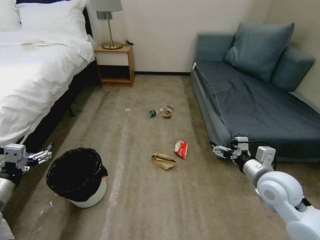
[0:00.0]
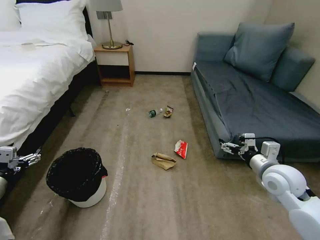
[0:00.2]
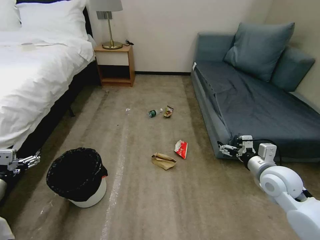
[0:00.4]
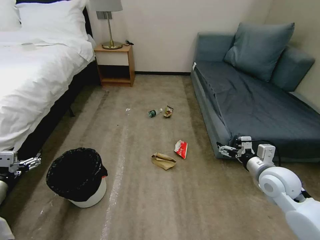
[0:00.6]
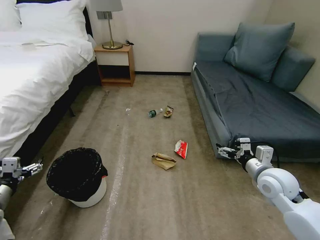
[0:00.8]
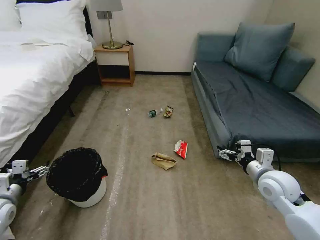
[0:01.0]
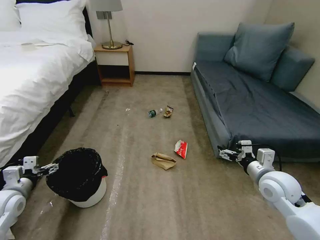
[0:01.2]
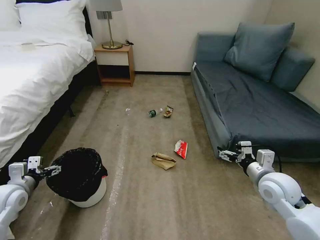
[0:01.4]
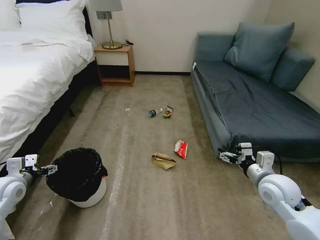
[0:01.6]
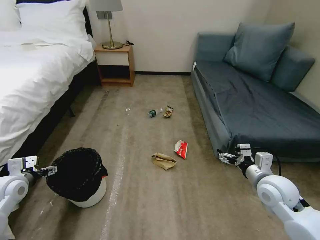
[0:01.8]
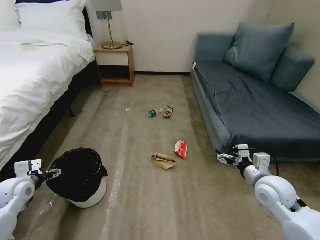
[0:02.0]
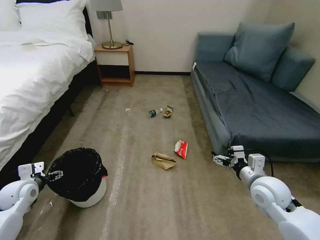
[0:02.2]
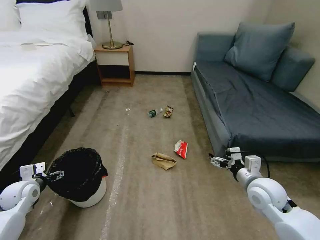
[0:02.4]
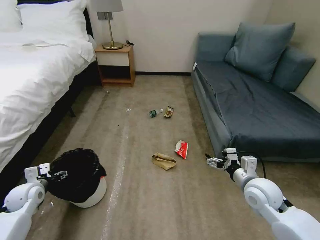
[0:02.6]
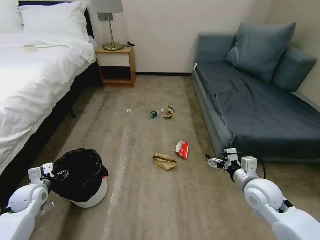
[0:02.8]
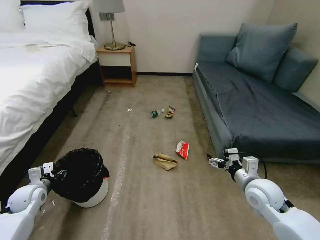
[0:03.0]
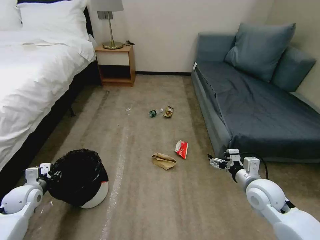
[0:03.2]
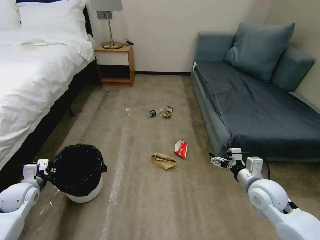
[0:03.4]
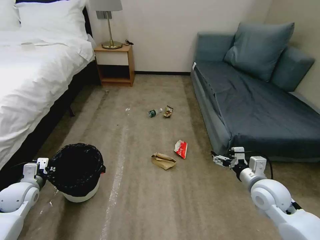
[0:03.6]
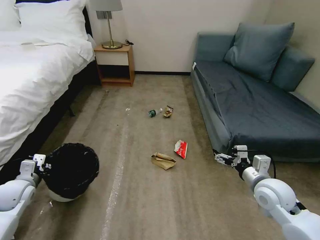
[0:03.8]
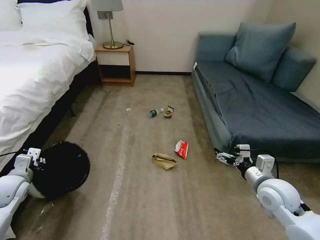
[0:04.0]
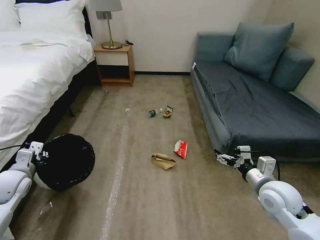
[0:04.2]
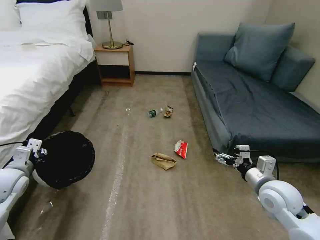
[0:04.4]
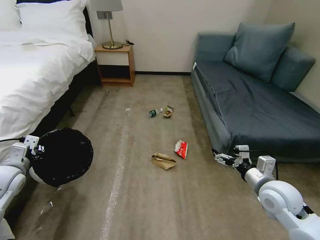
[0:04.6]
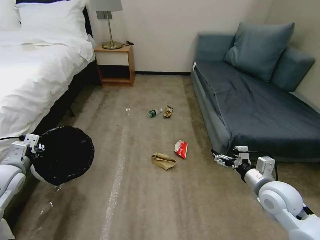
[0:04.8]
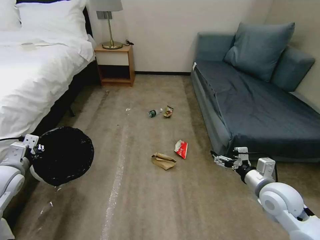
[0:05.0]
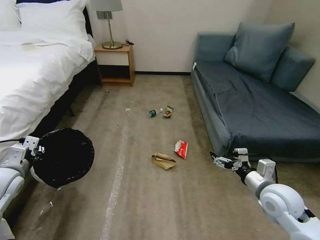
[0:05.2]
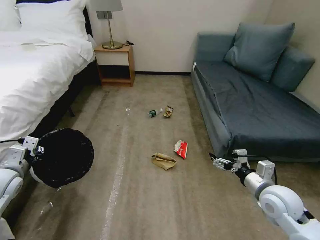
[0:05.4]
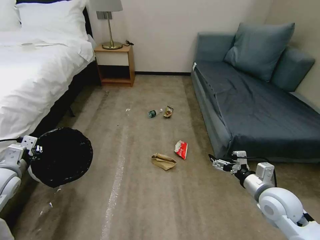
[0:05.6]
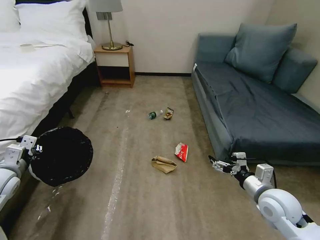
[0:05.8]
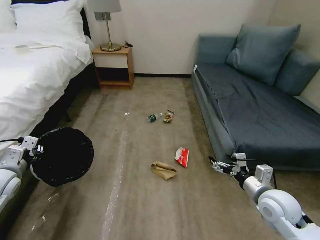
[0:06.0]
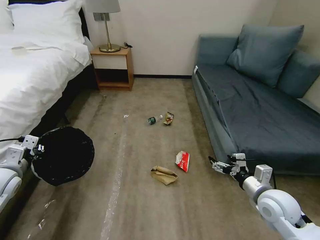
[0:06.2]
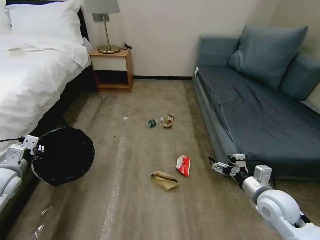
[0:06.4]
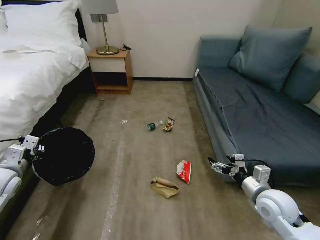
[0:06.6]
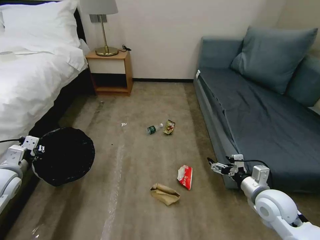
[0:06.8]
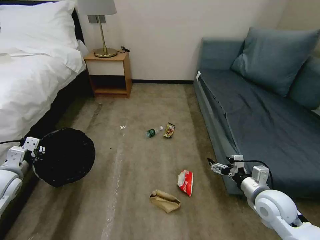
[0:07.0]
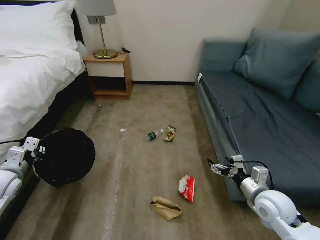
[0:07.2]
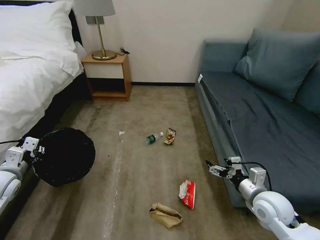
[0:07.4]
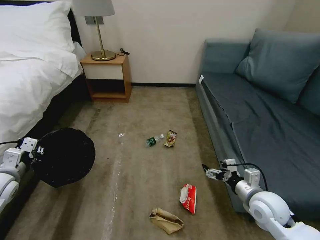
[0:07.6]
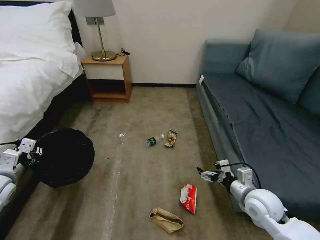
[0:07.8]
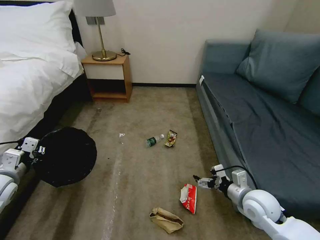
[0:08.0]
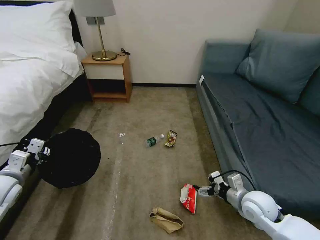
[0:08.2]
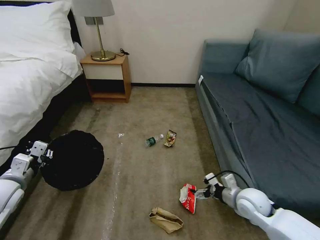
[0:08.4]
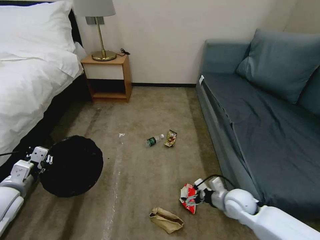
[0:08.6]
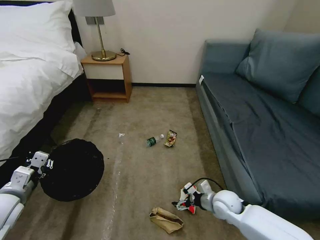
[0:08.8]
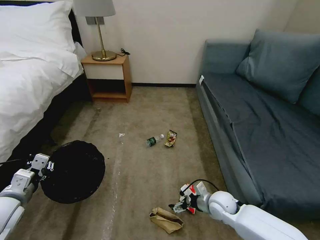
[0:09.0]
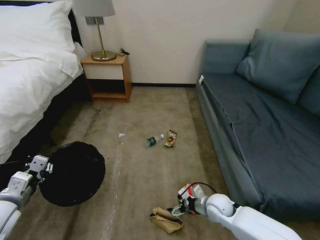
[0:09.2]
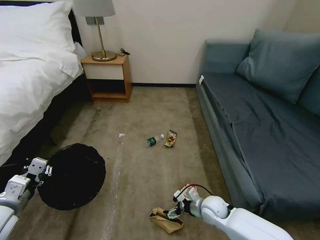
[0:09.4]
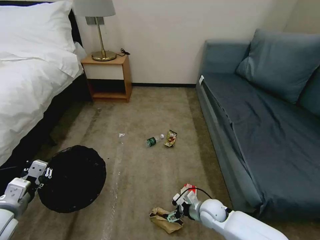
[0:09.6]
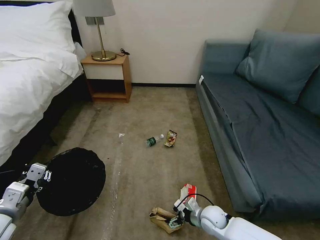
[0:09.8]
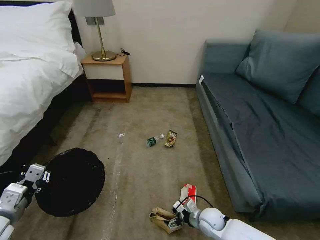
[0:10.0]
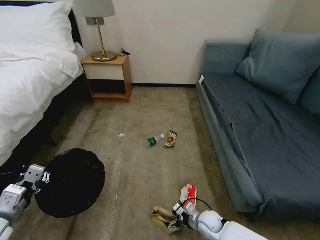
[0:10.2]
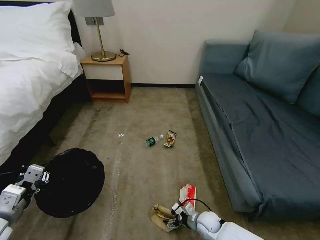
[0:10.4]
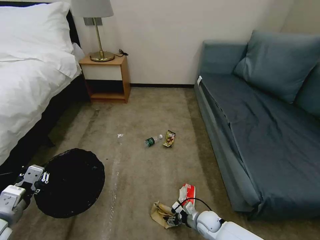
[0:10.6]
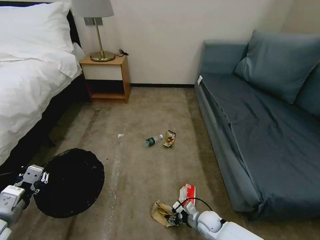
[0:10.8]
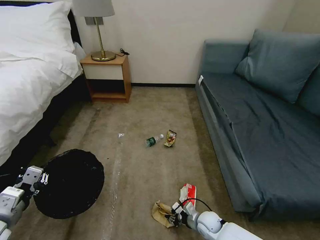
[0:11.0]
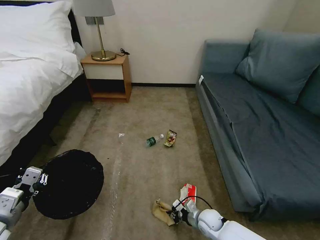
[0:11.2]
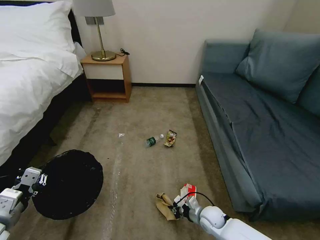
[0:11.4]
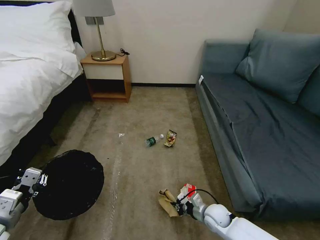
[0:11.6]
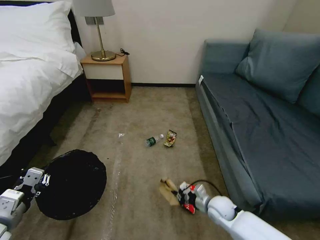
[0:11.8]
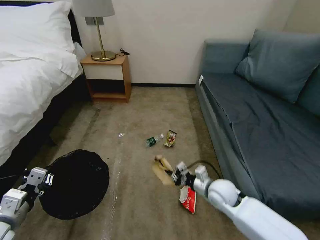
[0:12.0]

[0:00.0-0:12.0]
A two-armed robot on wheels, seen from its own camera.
Task of the whole recording: Pick up the trash bin, then pick up the garbage on the floor and place it into the trash bin.
0:01.6 to 0:03.0: The left gripper shifts about 10 cm downward, and closes its fingers.
0:03.0 to 0:04.4: The left gripper shifts approximately 10 cm upward, and closes up.
0:04.4 to 0:06.0: There are only small adjustments of the grippers.
0:07.6 to 0:09.0: The right gripper shifts some 15 cm downward and to the left, while the left gripper moves backward, about 5 cm.
0:09.0 to 0:10.4: The right gripper shifts approximately 15 cm downward; the left gripper is displaced backward by some 5 cm.
0:10.4 to 0:12.0: The right gripper is displaced upward by some 20 cm, and closes its fingers.

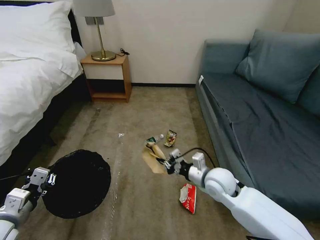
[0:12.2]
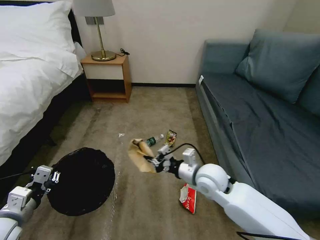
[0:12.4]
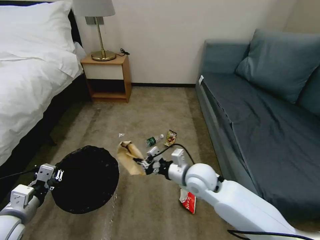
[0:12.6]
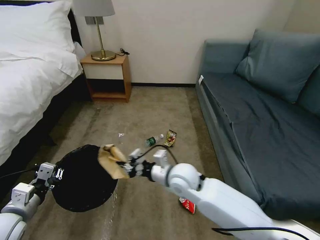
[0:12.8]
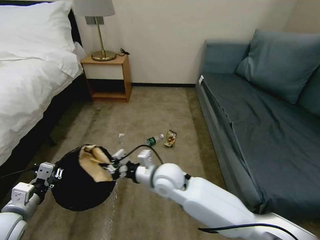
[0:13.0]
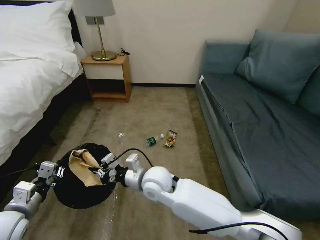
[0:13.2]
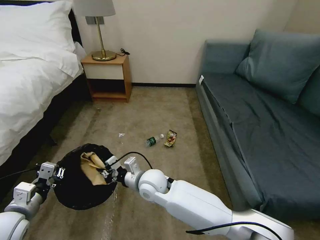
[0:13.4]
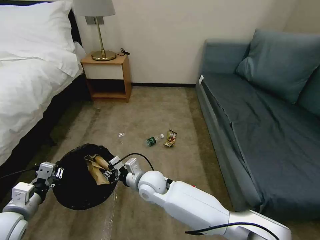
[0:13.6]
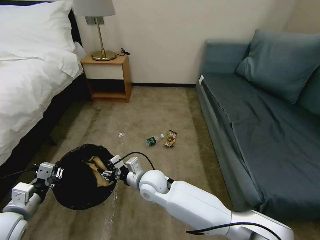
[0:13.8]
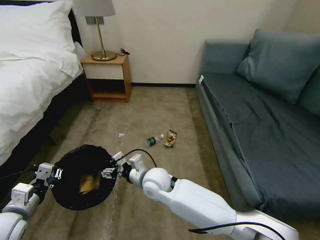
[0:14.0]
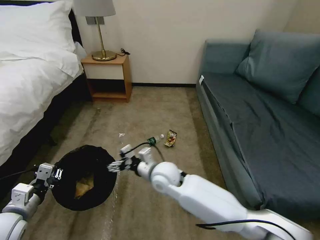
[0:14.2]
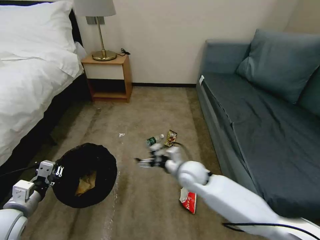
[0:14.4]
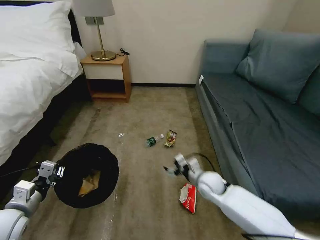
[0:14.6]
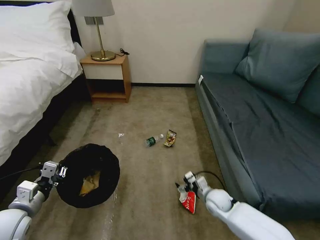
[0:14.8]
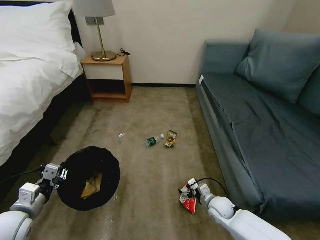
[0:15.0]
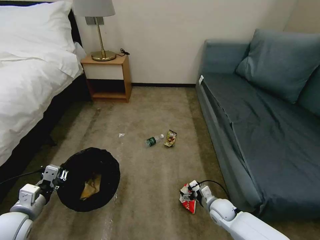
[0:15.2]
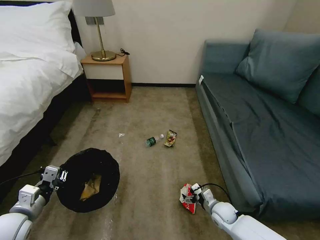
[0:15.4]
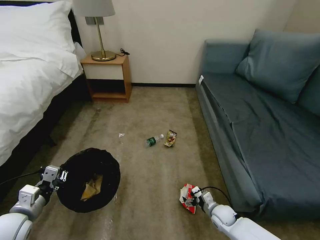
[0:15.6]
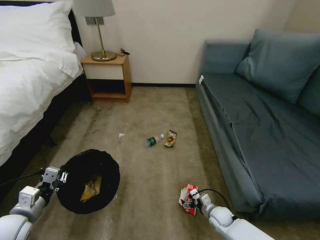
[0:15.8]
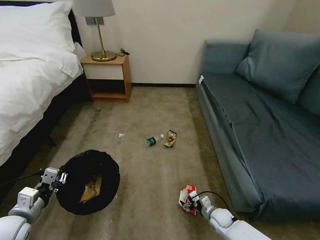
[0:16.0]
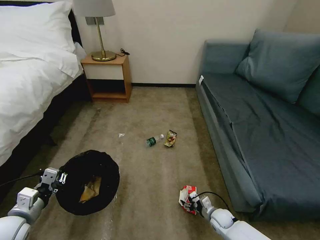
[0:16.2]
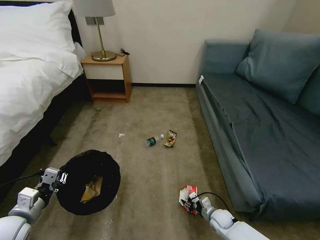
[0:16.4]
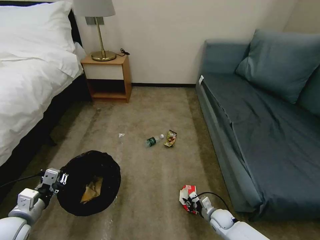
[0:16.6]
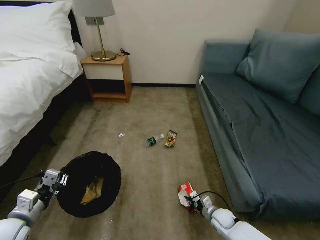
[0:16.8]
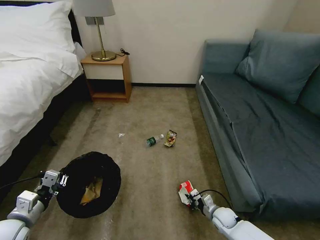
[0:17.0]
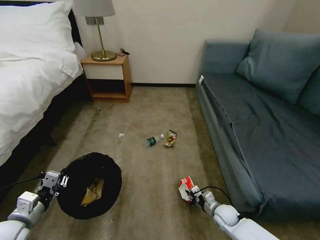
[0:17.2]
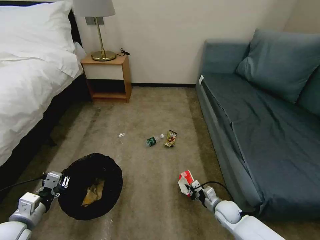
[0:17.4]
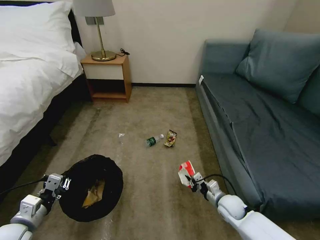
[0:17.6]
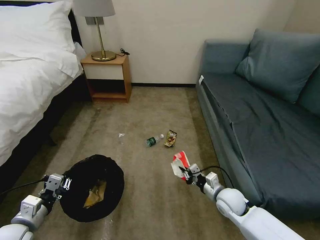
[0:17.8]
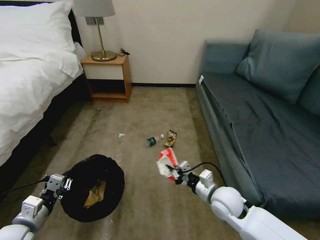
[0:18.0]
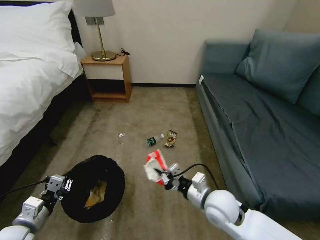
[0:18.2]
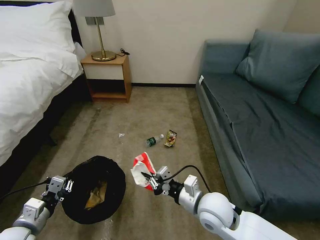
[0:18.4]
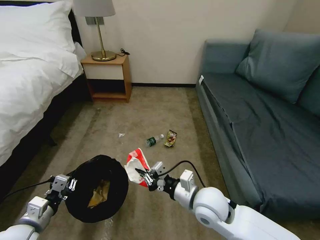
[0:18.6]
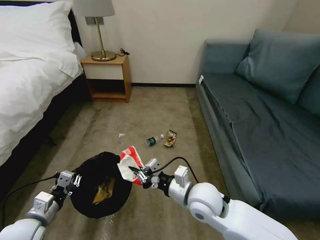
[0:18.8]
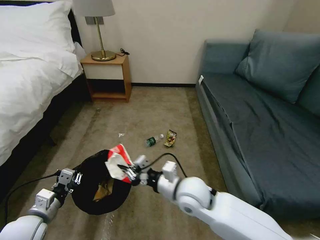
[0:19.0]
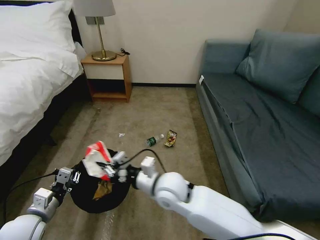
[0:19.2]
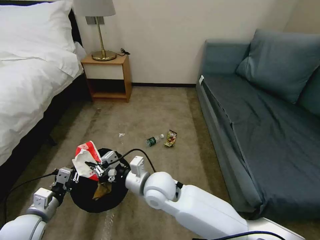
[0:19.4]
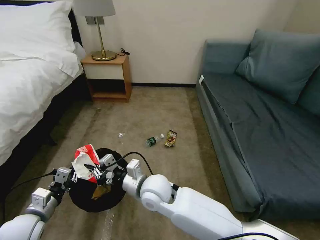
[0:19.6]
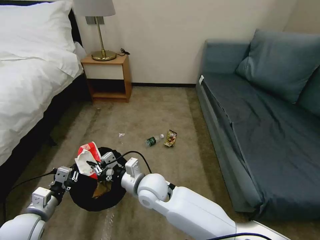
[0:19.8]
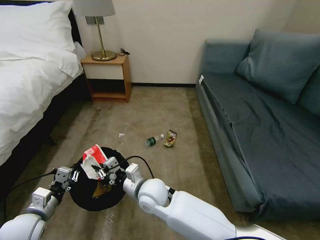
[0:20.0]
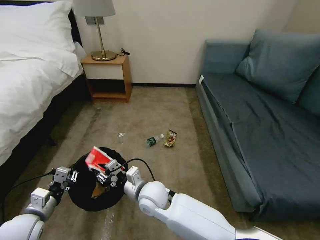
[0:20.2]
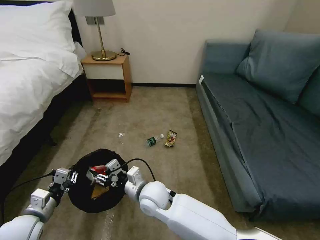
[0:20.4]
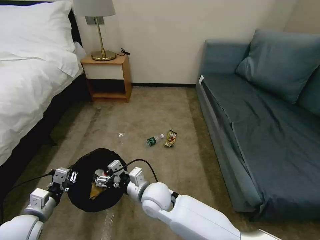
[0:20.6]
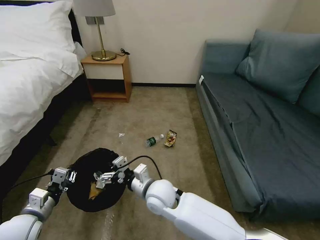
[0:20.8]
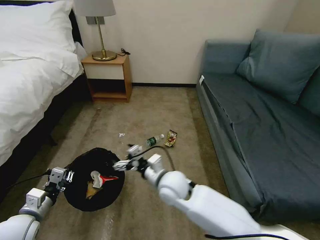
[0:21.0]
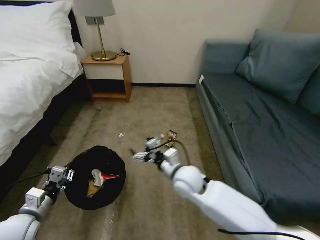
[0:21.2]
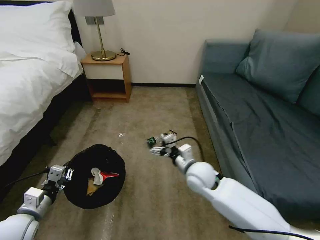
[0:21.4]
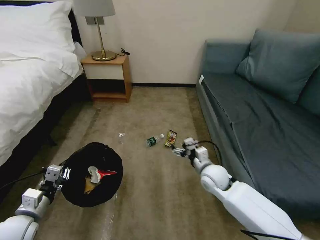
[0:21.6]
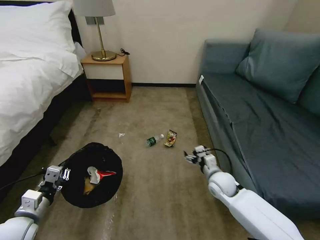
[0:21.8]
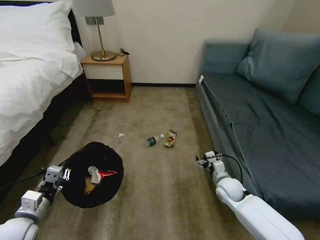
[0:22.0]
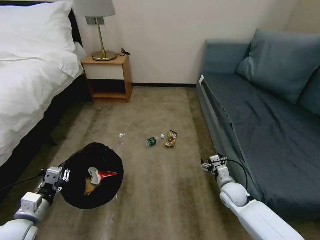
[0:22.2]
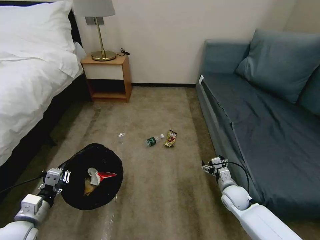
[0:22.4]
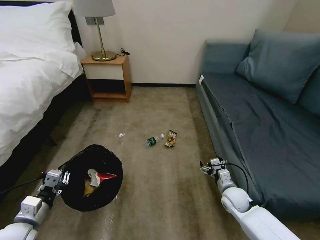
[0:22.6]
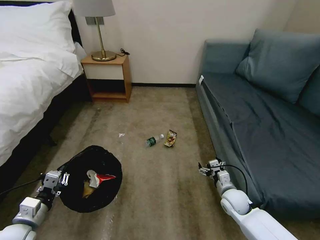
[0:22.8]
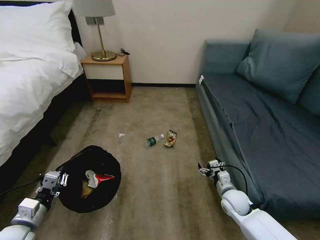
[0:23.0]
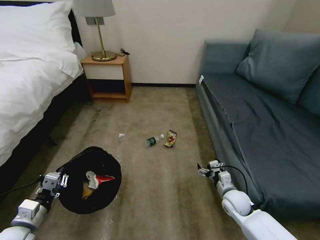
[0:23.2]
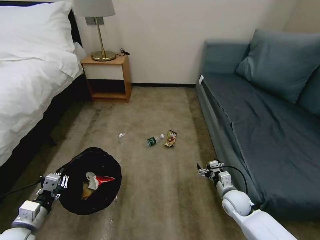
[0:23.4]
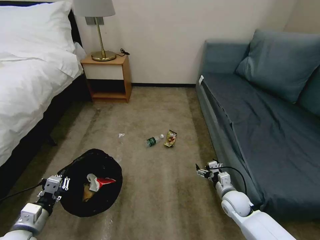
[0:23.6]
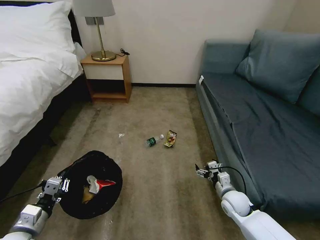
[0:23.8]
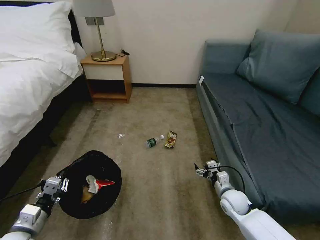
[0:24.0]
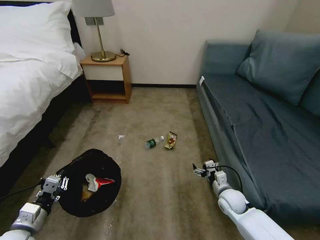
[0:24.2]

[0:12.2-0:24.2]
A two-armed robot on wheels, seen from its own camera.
Task of the whole recording: Pick up the trash bin, then pick up the garbage on the floor and place it into the trash bin.
0:12.2 to 0:13.8: The right gripper heads to the left, covering about 20 cm, and opens.
0:13.8 to 0:15.2: The right gripper heads to the right and downward, covering approximately 35 cm, and opens up.
0:15.2 to 0:16.6: The right gripper goes about 5 cm downward, and closes.
0:16.6 to 0:18.2: The right gripper heads upward, covering about 25 cm.
0:18.2 to 0:19.8: The right gripper moves to the left, approximately 20 cm.
0:19.8 to 0:21.2: The right gripper moves to the right, some 10 cm, and opens its fingers.
0:21.2 to 0:22.6: The right gripper shifts approximately 25 cm to the right and downward.
0:22.6 to 0:24.2: The grippers stay close to where they were, moving slightly.
